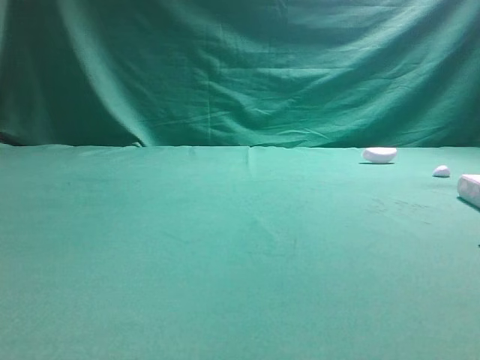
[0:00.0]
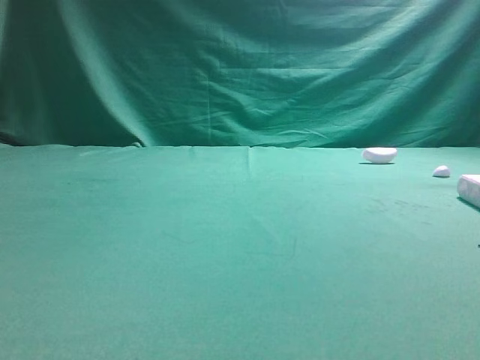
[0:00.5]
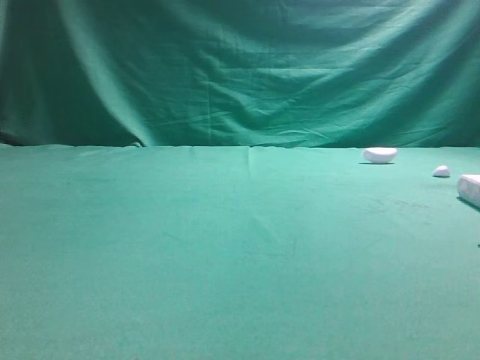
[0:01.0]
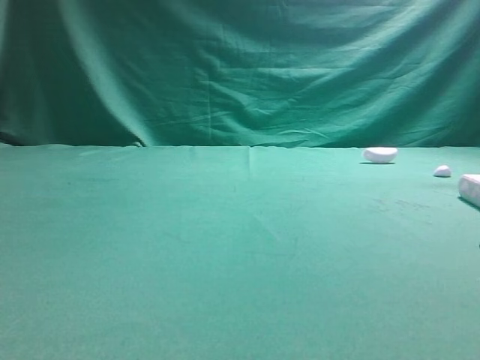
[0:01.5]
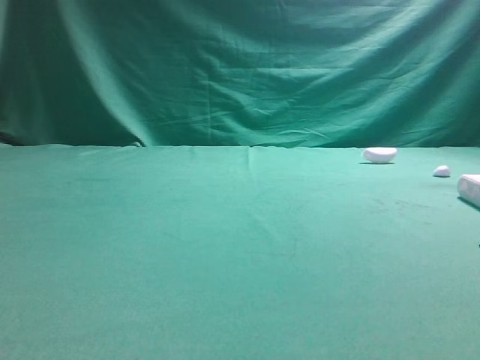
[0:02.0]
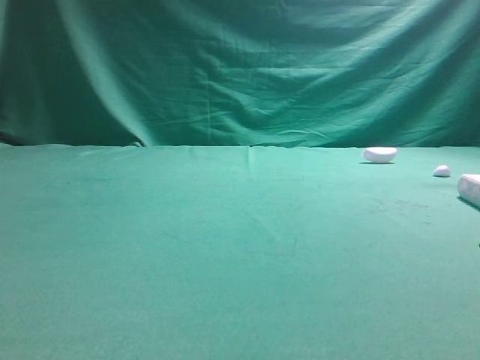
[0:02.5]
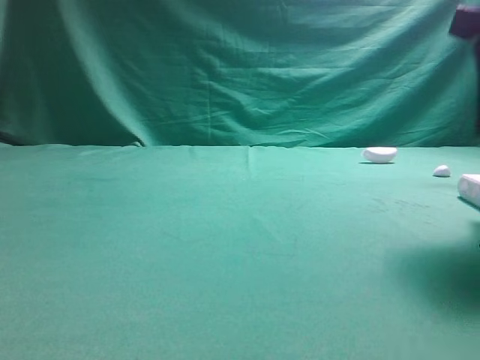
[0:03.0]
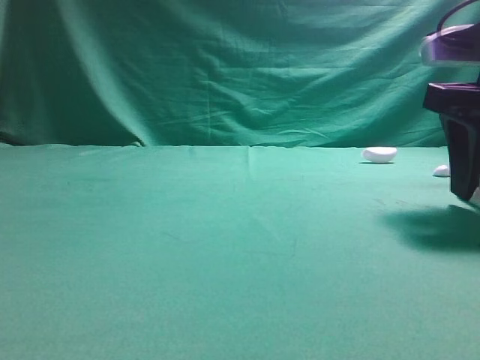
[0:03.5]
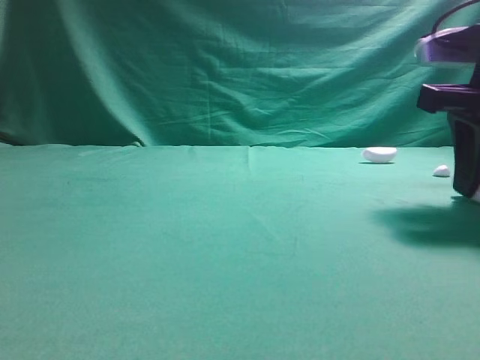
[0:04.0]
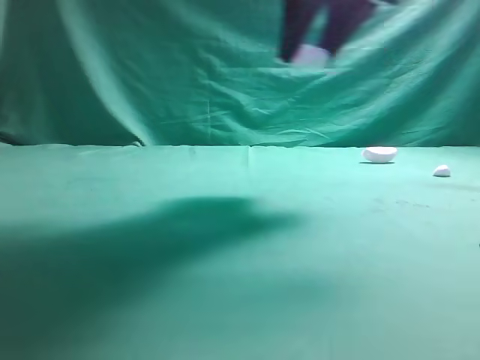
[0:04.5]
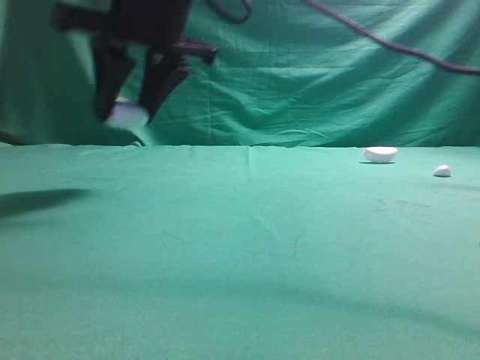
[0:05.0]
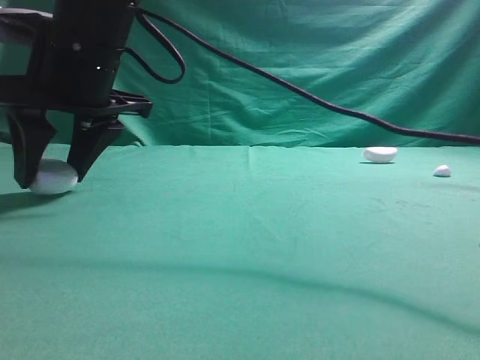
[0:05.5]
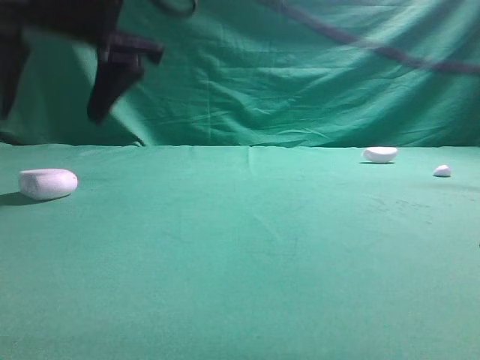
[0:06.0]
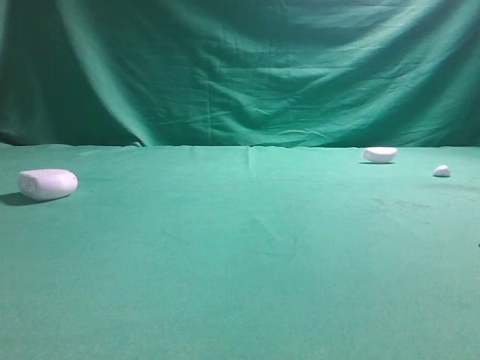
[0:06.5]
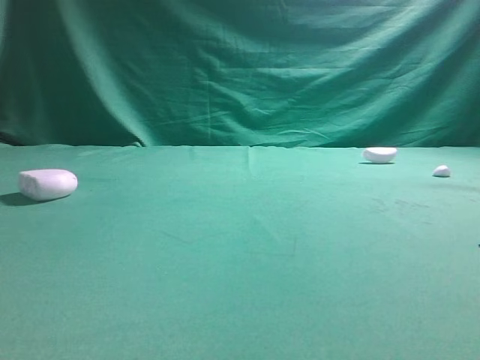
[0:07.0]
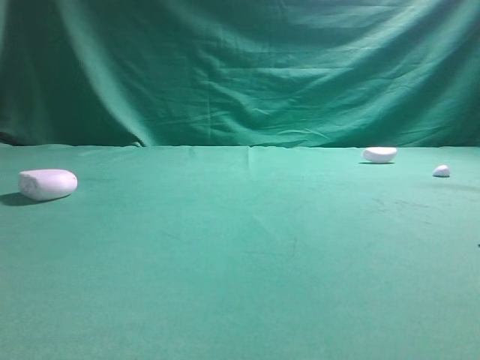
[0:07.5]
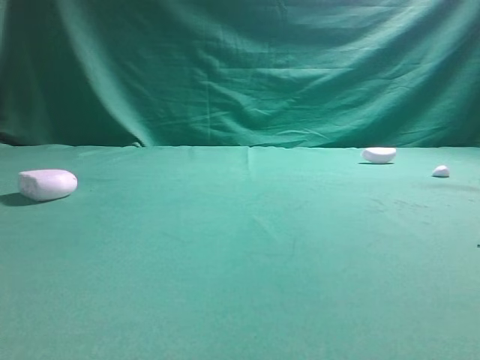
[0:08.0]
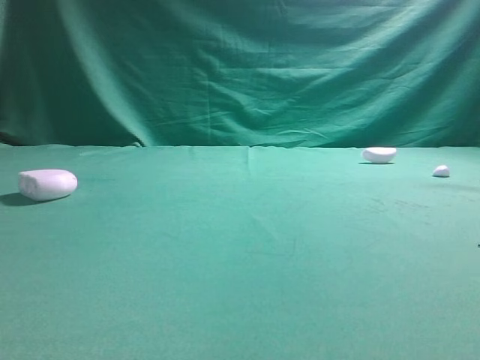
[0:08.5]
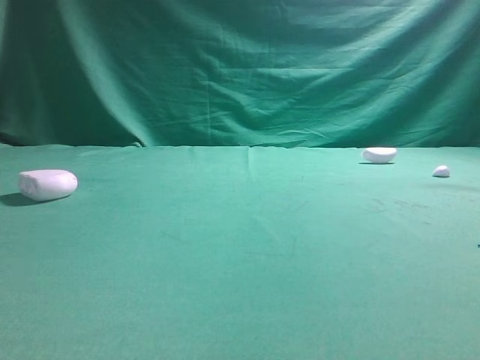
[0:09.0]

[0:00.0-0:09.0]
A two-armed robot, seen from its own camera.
Step, 0:00.0 to 0:03.0: Grasp the Bluetooth earphone case.
Step, 0:03.5 to 0:05.5: Place bluetooth earphone case on the left side of the table.
